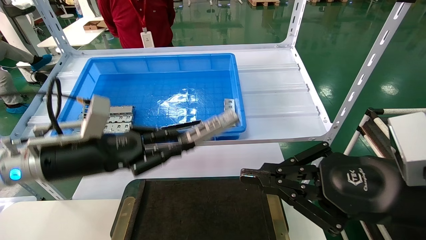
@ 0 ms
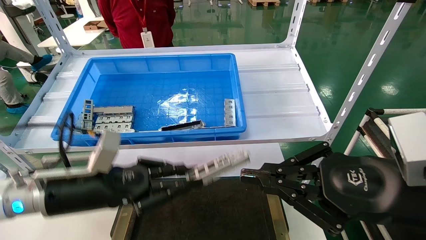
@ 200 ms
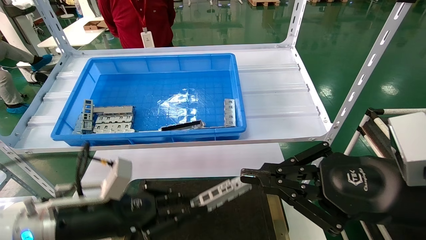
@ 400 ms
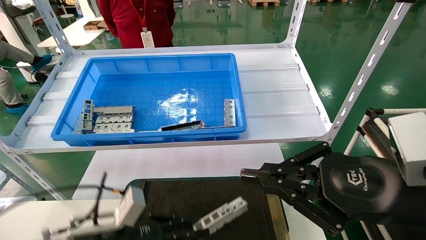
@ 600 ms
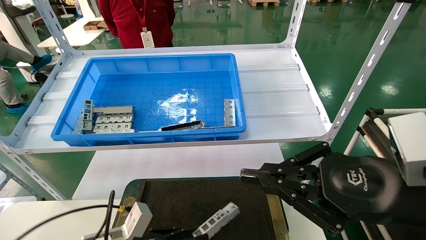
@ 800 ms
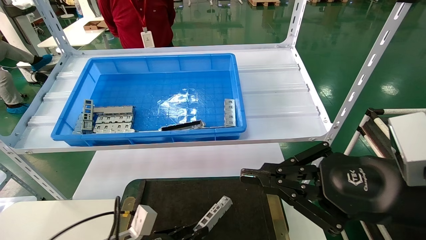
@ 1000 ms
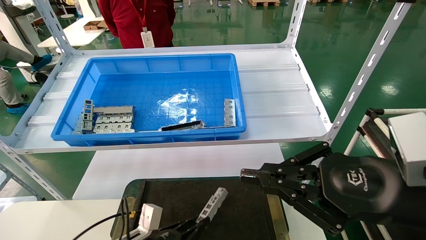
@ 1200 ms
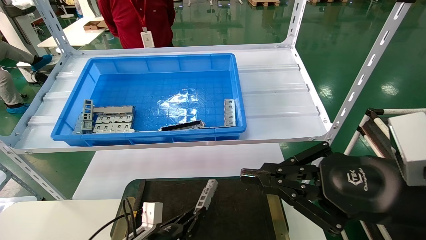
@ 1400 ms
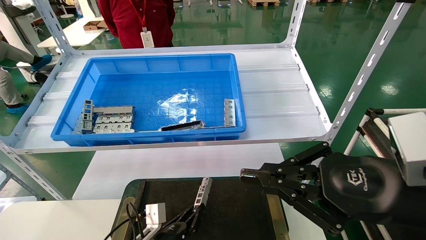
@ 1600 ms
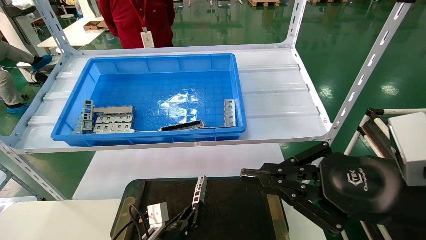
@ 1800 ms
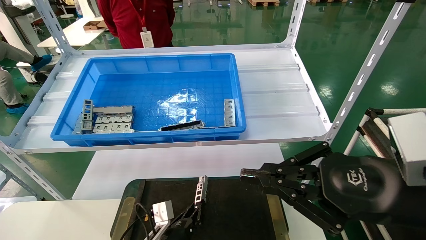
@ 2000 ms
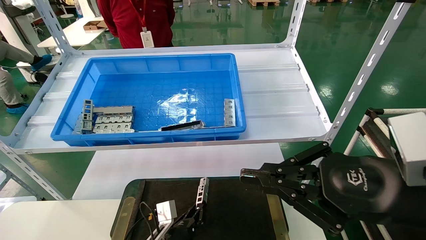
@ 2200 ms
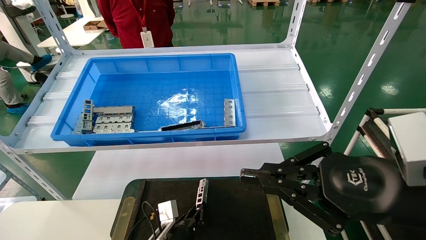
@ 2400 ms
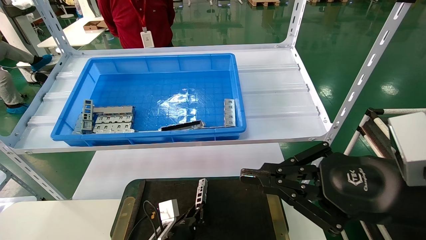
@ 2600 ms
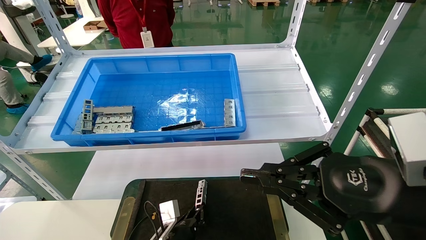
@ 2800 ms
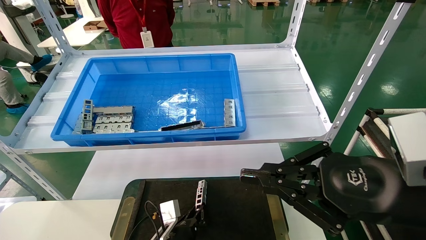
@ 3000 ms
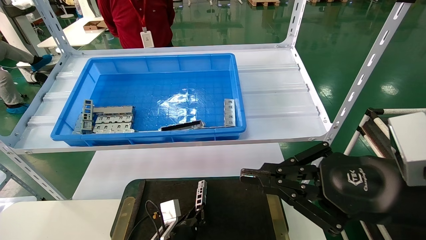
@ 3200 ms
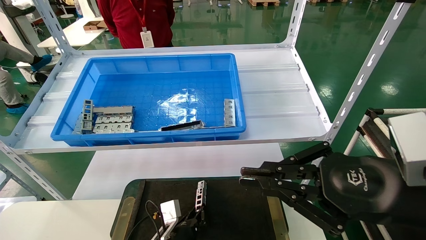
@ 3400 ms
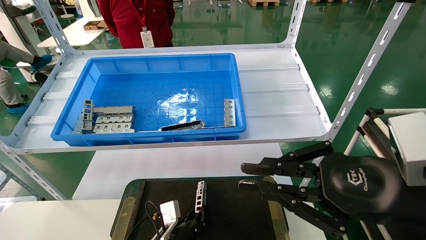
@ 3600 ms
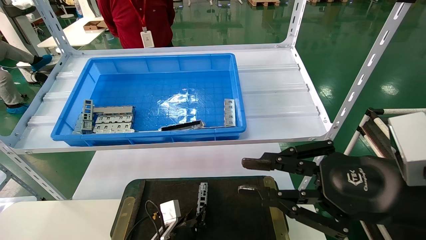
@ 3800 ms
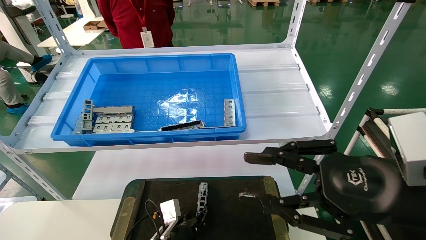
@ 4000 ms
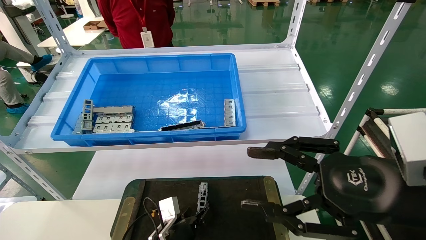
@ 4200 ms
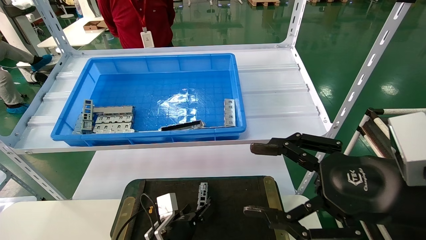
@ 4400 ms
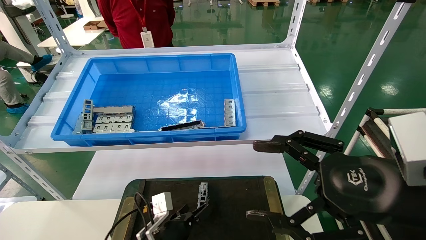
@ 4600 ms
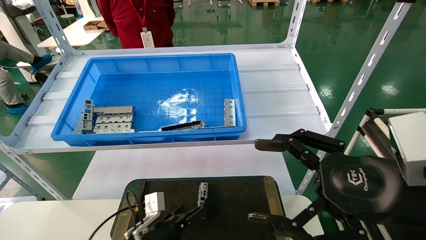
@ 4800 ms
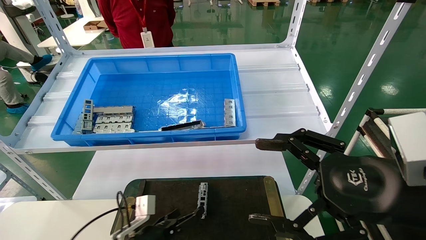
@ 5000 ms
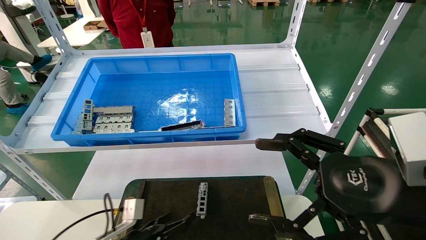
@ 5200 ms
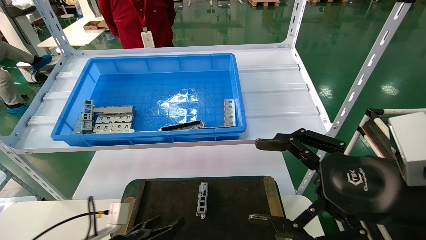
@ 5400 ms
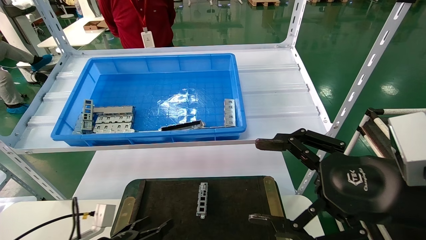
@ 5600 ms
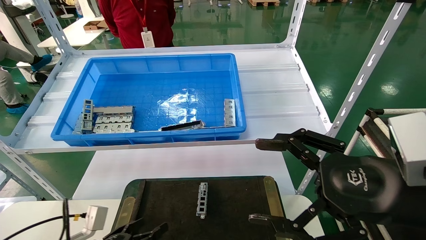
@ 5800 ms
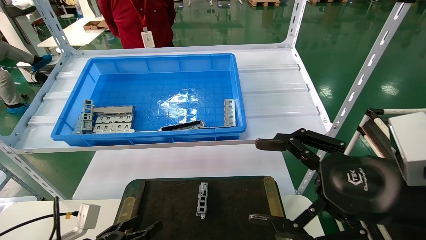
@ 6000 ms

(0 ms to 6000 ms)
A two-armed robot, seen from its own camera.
Task of the whole recording: Grasp the part with one hand and place it on the black container.
Step, 0 ms - 3600 ms: Place the front USB bracket into the box.
0 ms - 1600 ms: The left gripper moves downward and to the right, some 30 cm.
1600 ms - 3000 ms: The left gripper ends up about 5 cm from where it was.
3000 ms - 4400 ms: The right gripper opens up. The left gripper opens up.
4400 ms - 6000 ms: The left gripper moves to the left and backward, about 20 cm, while the right gripper opens.

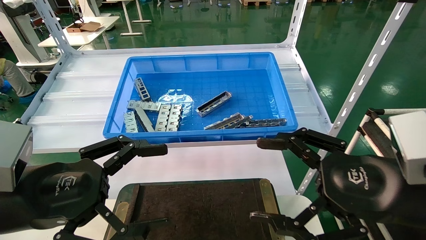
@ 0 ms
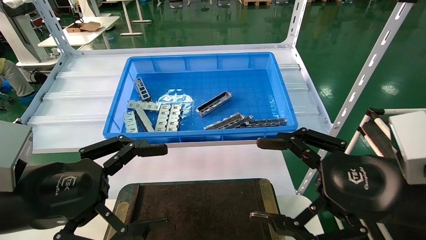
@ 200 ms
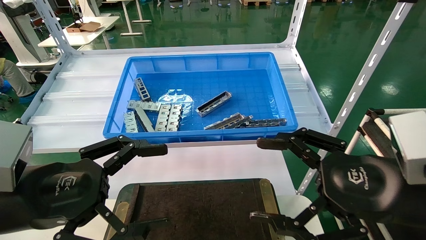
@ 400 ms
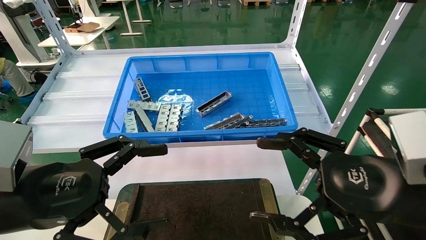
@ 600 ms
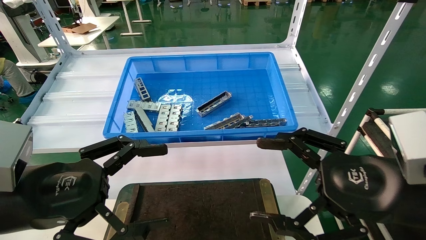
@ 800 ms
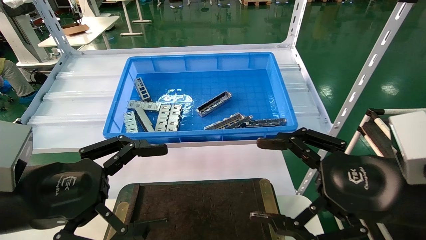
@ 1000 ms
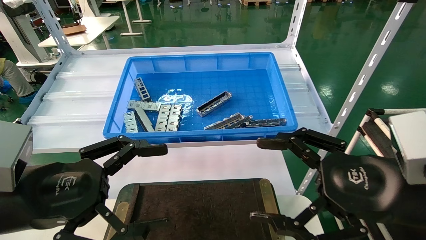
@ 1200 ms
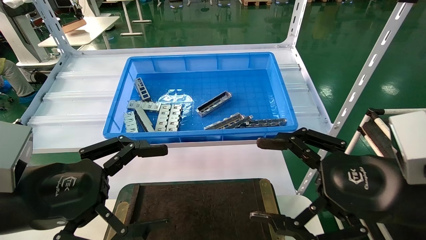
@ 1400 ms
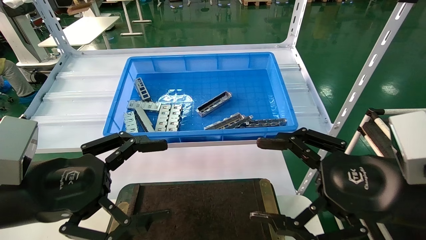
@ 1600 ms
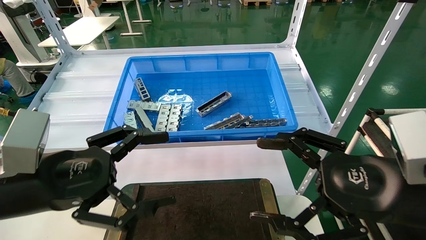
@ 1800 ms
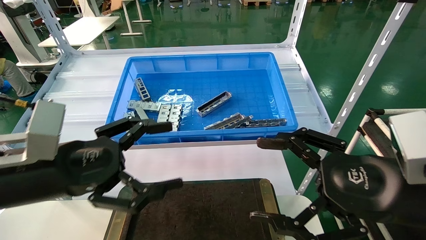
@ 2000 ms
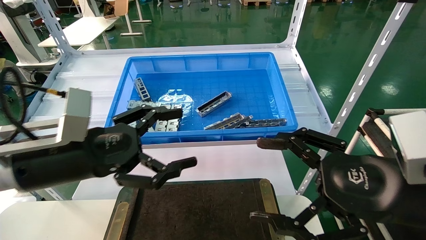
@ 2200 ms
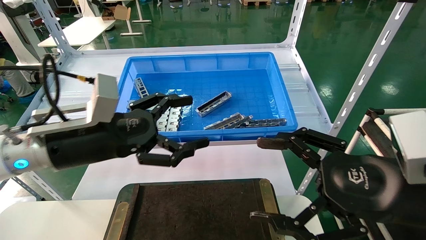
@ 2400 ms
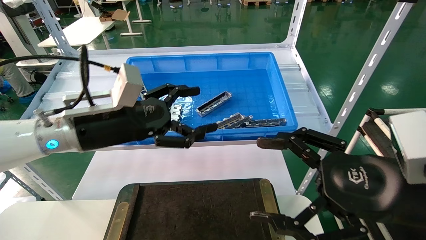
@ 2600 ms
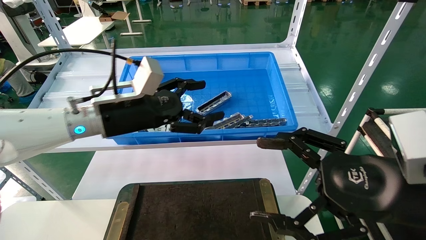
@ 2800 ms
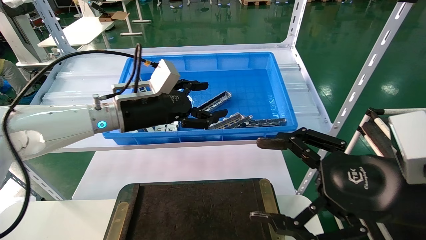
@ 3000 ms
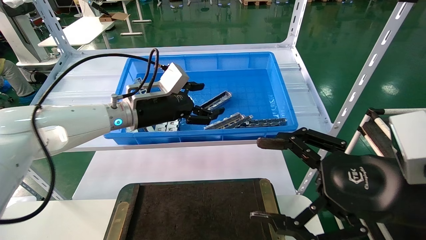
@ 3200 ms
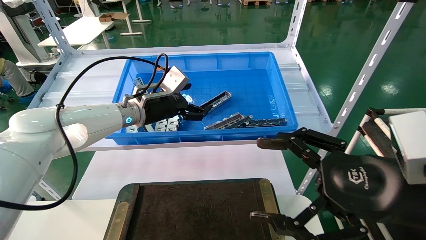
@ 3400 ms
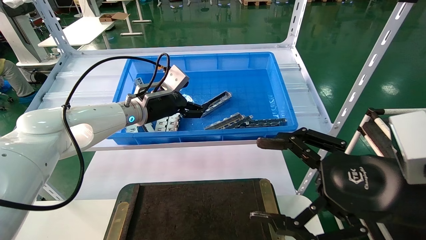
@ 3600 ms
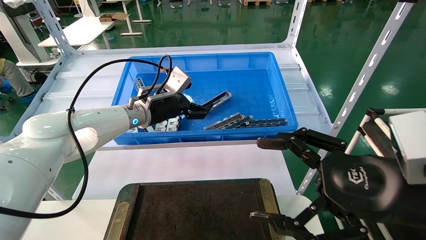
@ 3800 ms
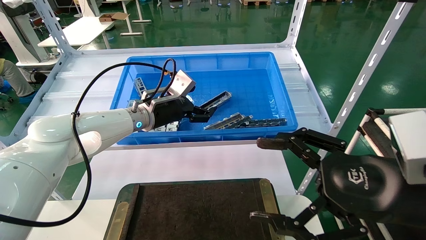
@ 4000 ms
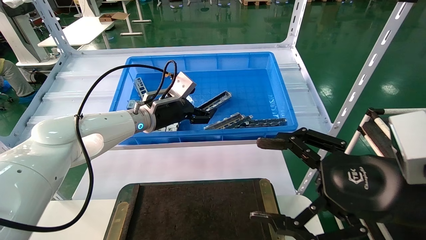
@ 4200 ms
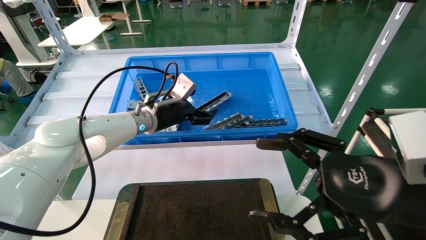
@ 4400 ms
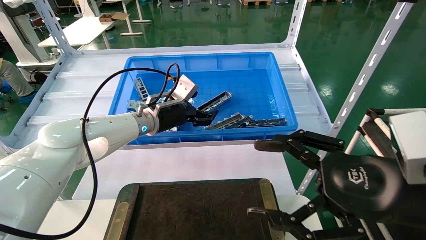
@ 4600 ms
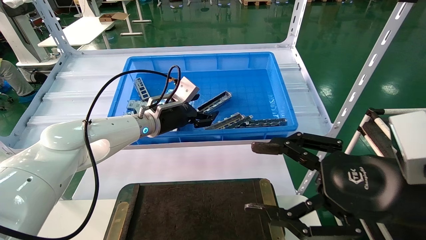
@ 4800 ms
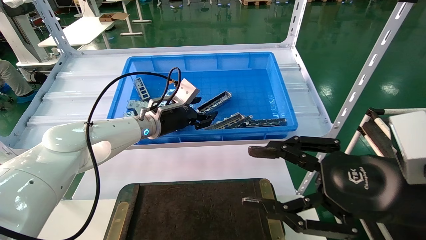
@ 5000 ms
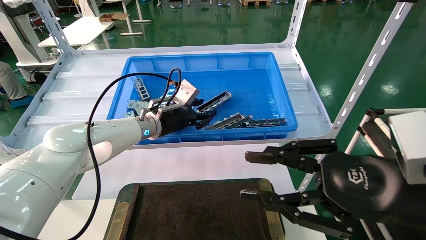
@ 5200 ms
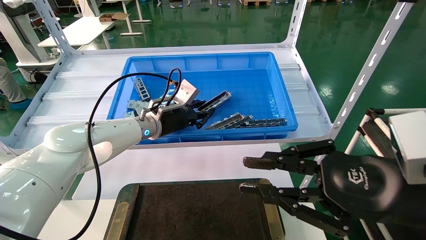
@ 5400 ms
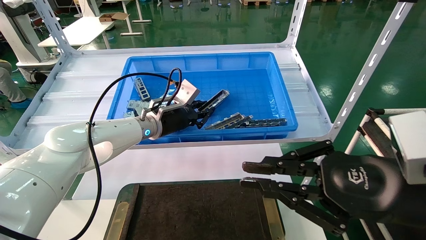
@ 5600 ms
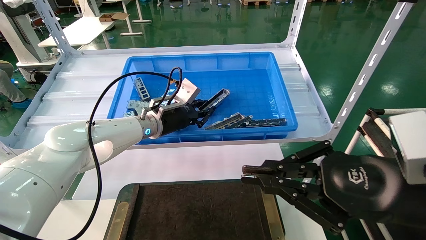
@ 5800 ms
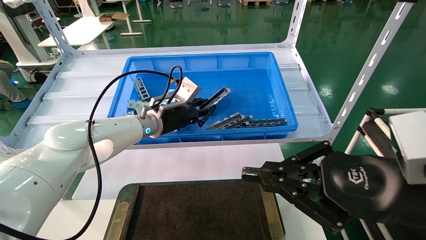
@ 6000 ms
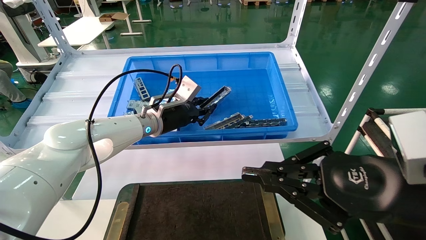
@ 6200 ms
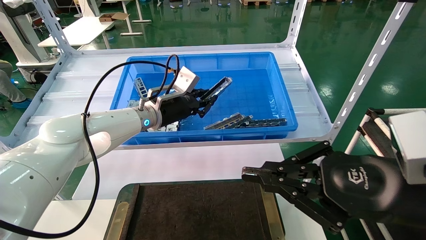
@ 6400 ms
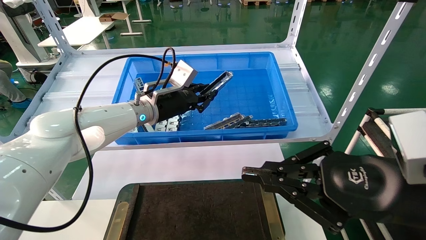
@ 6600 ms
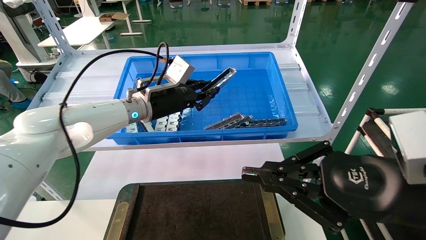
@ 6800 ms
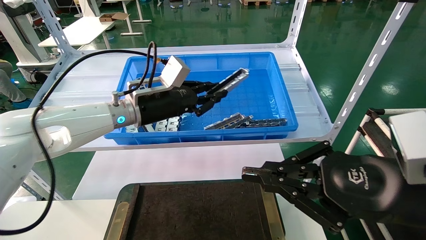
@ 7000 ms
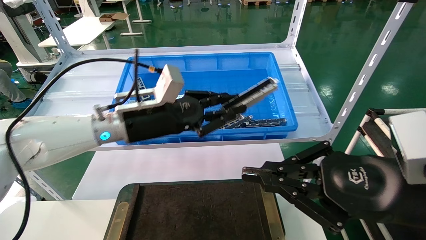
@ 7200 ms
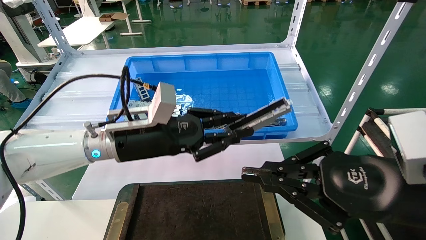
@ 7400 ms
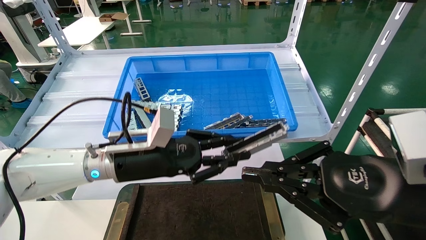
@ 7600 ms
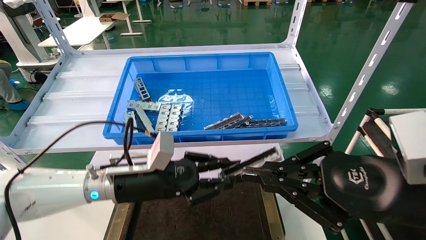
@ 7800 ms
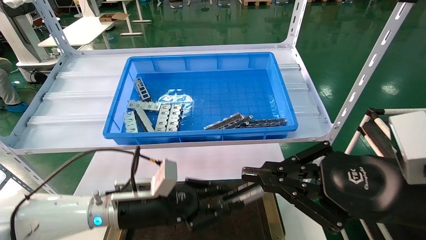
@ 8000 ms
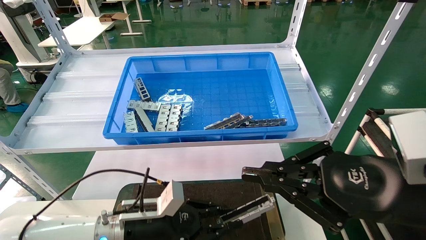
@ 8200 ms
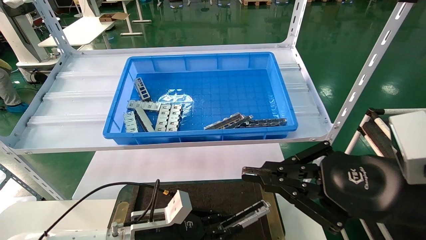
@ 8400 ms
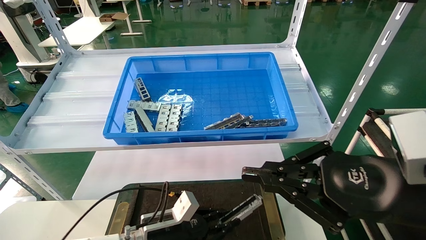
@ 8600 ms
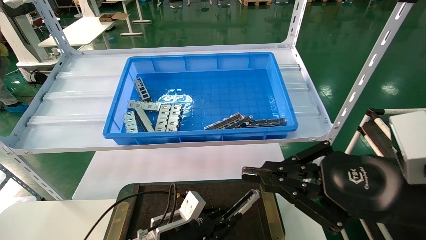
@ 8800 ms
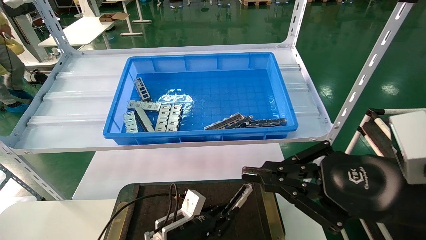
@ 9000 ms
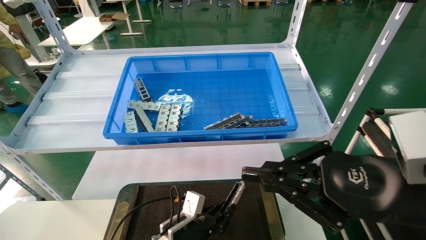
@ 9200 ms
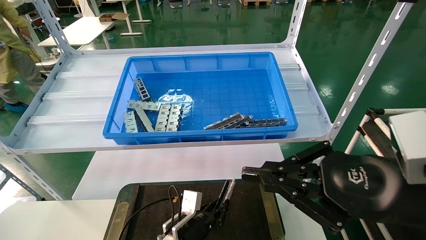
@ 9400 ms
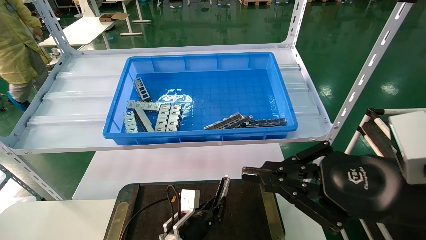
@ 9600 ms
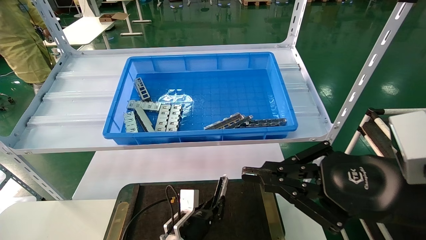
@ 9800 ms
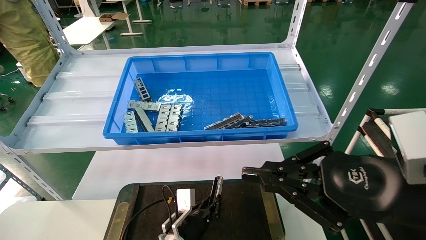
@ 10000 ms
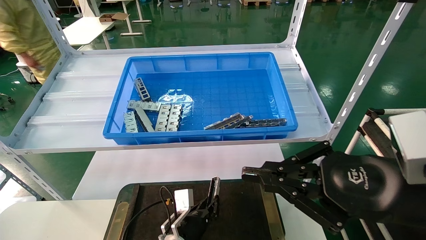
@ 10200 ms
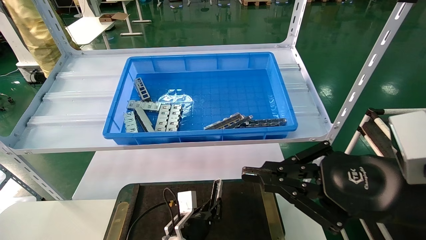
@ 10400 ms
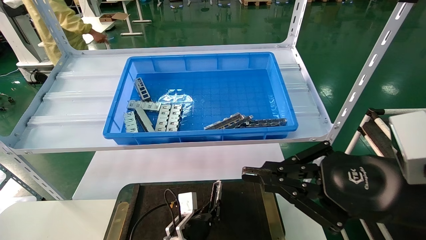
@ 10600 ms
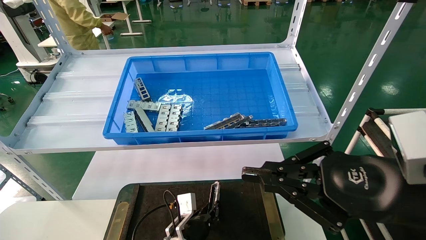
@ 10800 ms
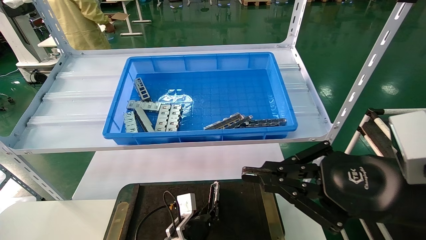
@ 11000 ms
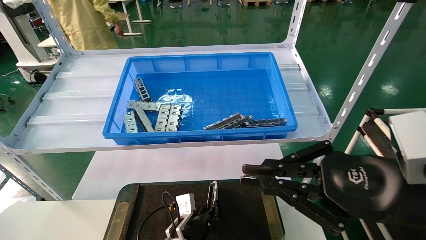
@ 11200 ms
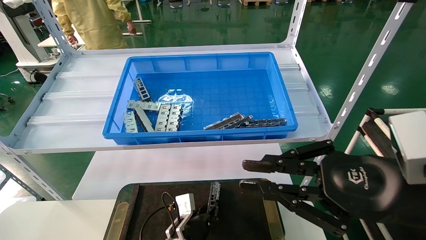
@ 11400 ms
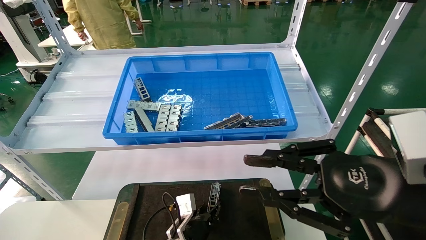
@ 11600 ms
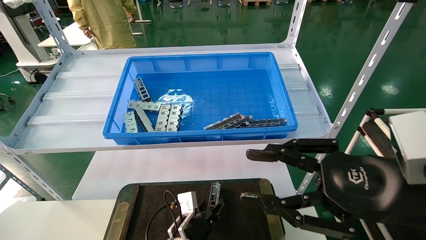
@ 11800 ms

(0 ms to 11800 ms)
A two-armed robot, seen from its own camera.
Task of the whole recording: Grasp the part with one hand and place it on the black container.
Step, 1600 ms - 6600 ms: Pick up the front USB bracket from the feeding area.
0 ms - 1400 ms: Both grippers stay about where they are.
1400 ms - 3000 ms: The left gripper moves forward, approximately 20 cm.
3000 ms - 4400 ms: The left gripper shifts about 5 cm forward.
4400 ms - 6000 ms: The left gripper closes. Meanwhile the right gripper closes.
6000 ms - 7400 ms: The left gripper travels backward by some 10 cm.
7400 ms - 8800 ms: The left gripper travels downward by roughly 25 cm.
8800 ms - 10400 ms: The left gripper ends up approximately 5 cm from where it was.
10400 ms - 11800 ms: The right gripper opens its fingers. The left gripper opens up.
